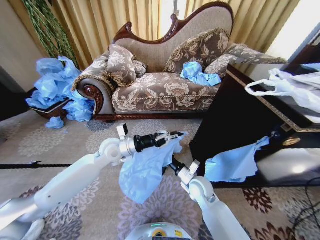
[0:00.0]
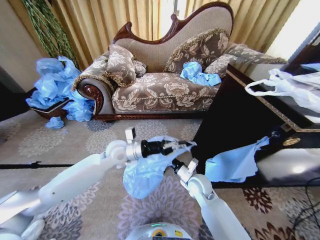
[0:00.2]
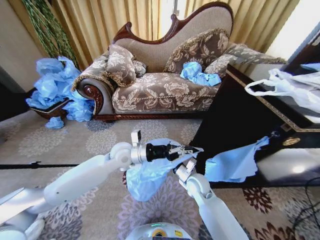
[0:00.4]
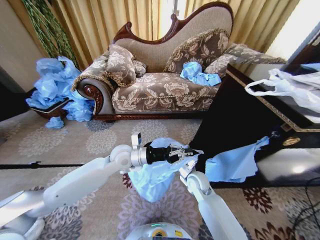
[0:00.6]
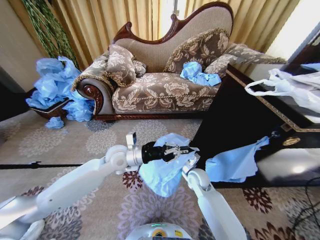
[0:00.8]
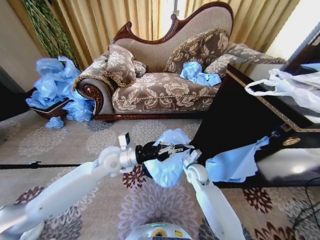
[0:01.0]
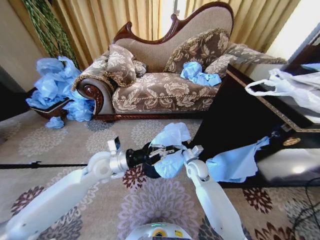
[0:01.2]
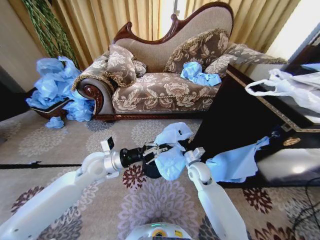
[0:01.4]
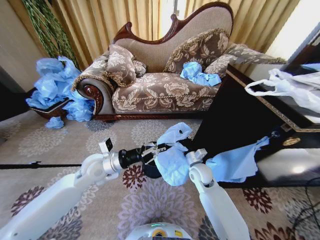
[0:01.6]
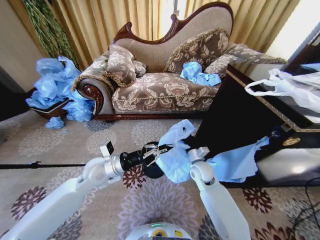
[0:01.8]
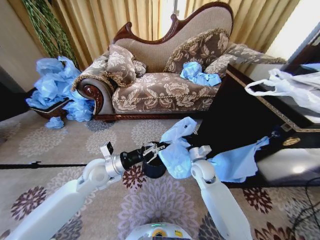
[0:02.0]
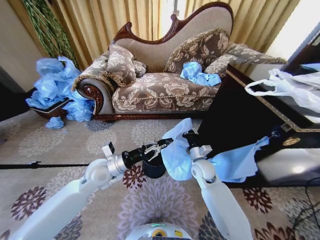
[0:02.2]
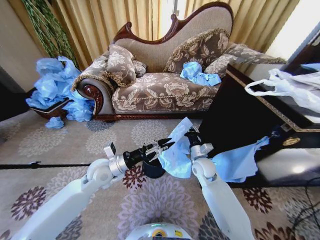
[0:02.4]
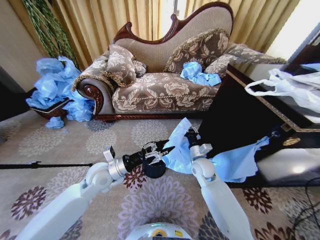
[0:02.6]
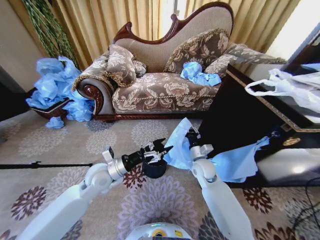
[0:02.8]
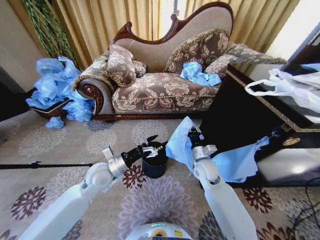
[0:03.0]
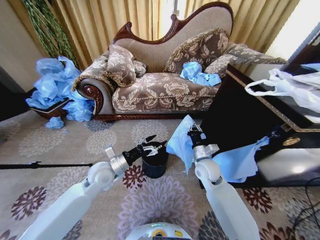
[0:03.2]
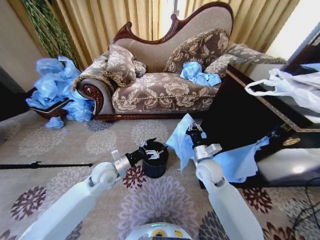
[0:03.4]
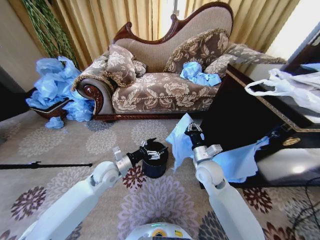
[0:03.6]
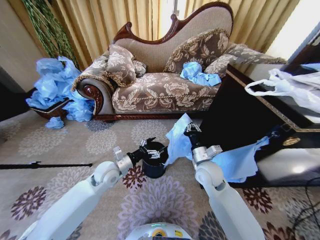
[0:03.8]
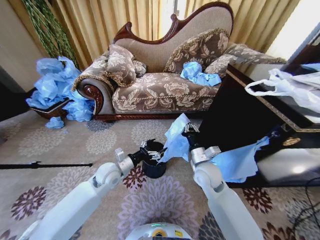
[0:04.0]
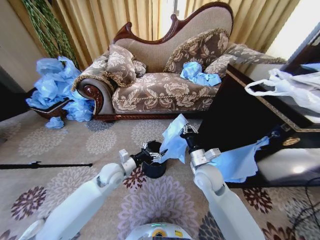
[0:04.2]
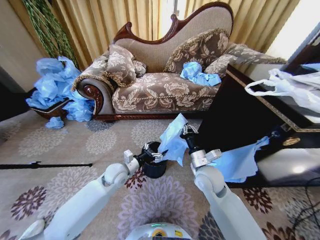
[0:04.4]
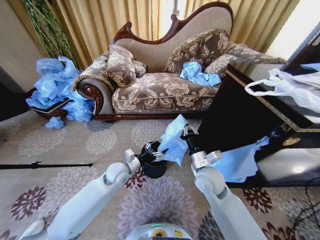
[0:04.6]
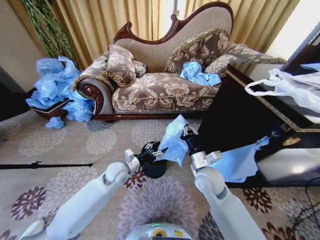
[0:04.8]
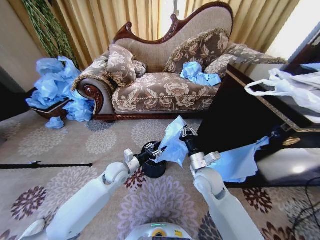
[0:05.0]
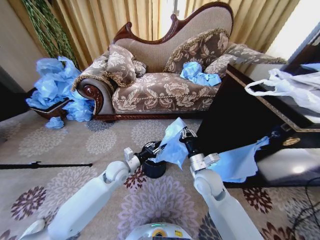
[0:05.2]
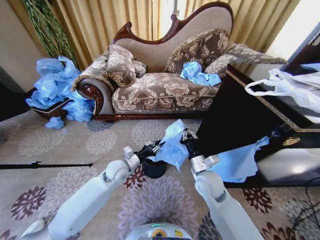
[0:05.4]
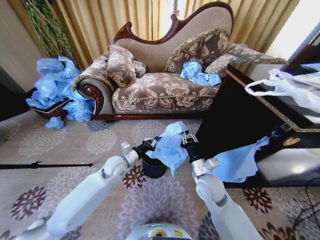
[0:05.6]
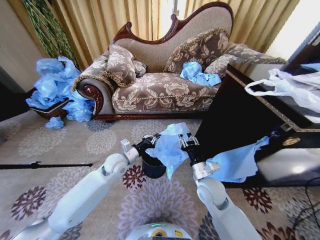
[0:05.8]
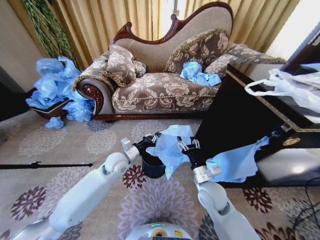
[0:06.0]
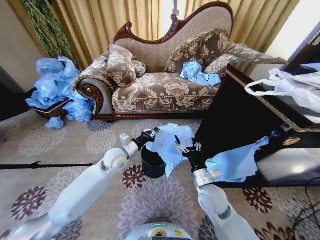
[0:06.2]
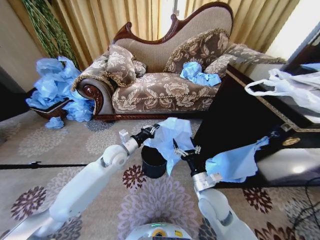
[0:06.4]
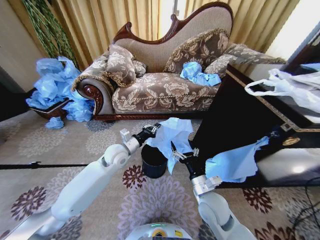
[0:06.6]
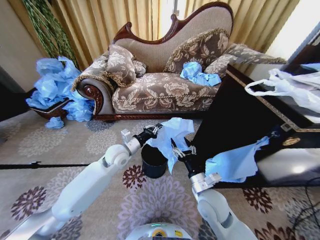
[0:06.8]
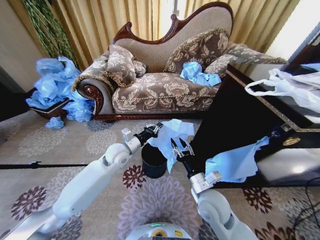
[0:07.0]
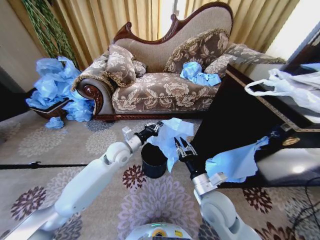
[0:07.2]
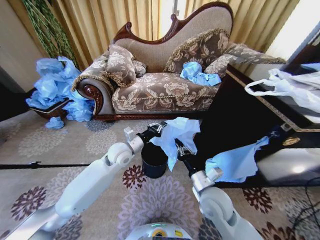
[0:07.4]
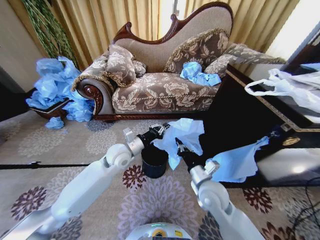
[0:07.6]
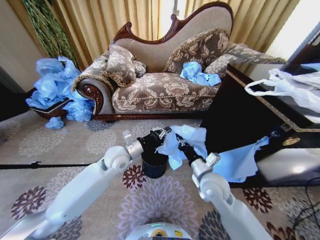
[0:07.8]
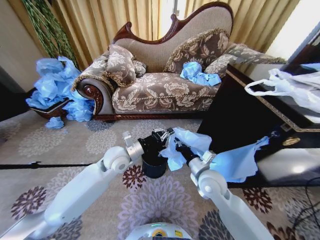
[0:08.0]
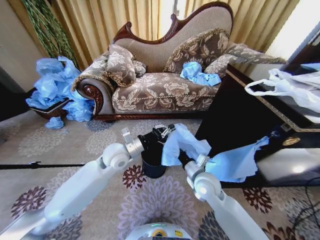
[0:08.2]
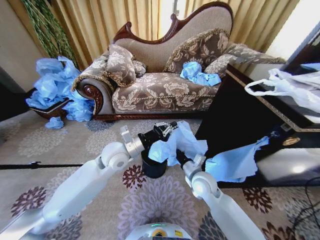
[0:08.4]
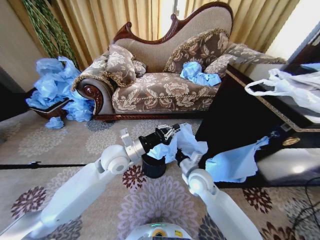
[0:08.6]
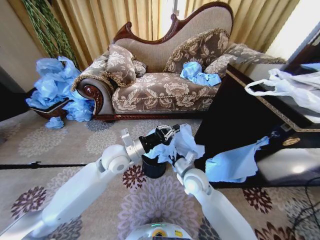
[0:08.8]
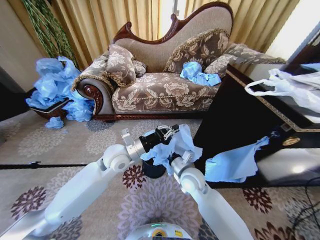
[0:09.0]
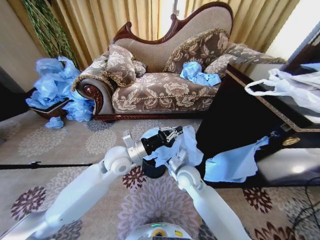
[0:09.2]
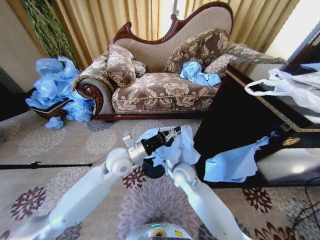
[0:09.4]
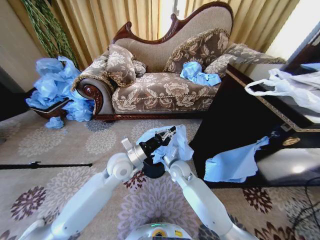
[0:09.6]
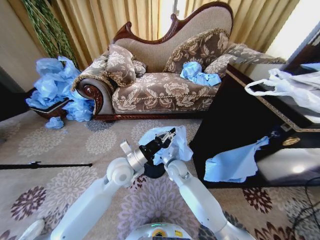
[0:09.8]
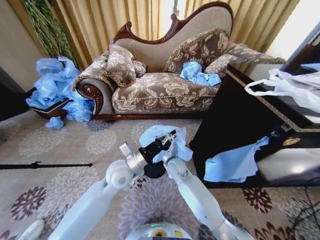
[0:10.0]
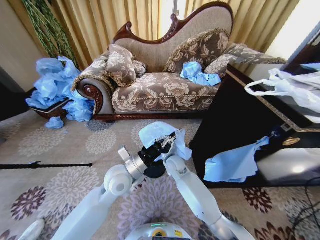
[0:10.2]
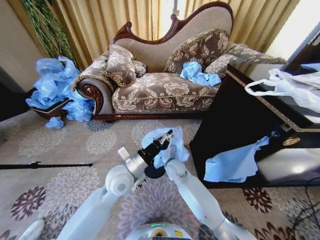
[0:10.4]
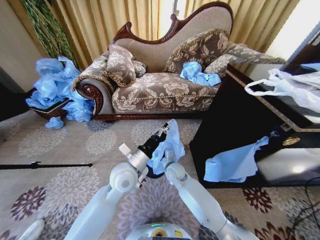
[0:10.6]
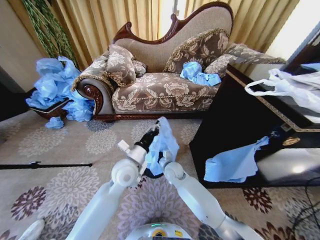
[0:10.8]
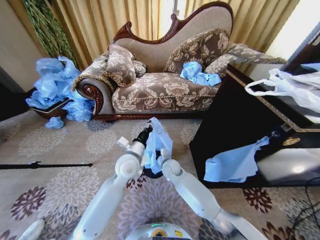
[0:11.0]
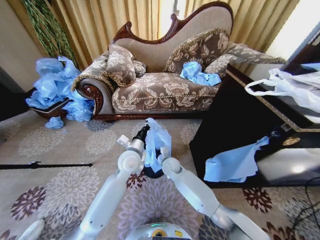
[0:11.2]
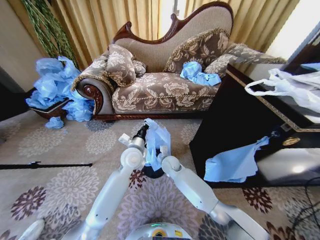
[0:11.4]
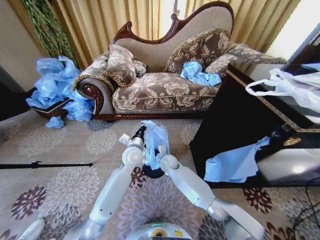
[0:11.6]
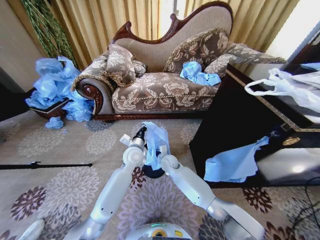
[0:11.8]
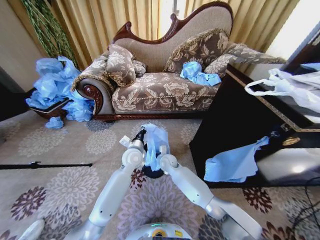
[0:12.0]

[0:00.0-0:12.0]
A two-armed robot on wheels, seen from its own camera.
Task of the whole recording: Place a garbage bag over the trash bin.
0:00.0 to 0:01.6: The left gripper goes some 5 cm backward. The right gripper goes about 5 cm forward.
0:01.6 to 0:03.0: The left gripper opens up.
0:03.0 to 0:04.4: The left gripper shifts about 5 cm downward, while the right gripper is displaced backward by roughly 5 cm.
0:04.4 to 0:06.0: The right gripper heads downward, covering roughly 5 cm, and opens, while the left gripper closes.
0:06.0 to 0:07.6: The left gripper goes some 5 cm upward. The right gripper closes.
0:07.6 to 0:09.0: The right gripper is displaced to the left and forward by about 10 cm.
0:09.0 to 0:10.4: The left gripper goes roughly 5 cm backward. Meanwhile the right gripper shifts approximately 10 cm forward and downward.
0:10.4 to 0:12.0: The left gripper moves forward and downward, approximately 15 cm, while the right gripper moves forward, about 5 cm.

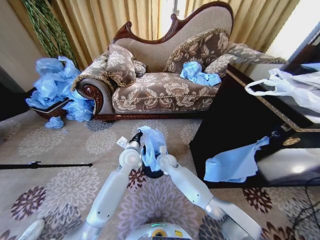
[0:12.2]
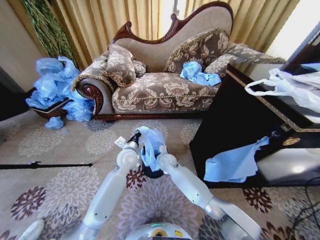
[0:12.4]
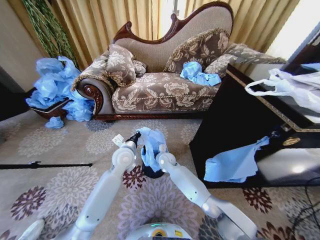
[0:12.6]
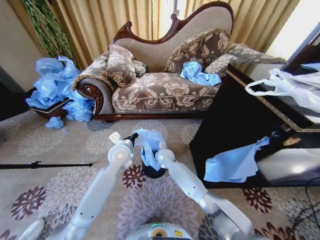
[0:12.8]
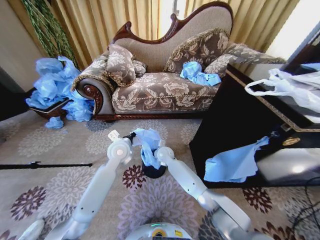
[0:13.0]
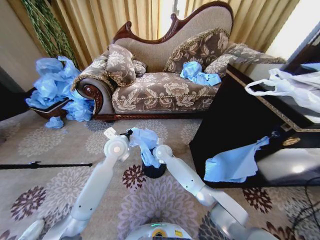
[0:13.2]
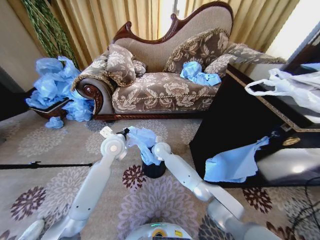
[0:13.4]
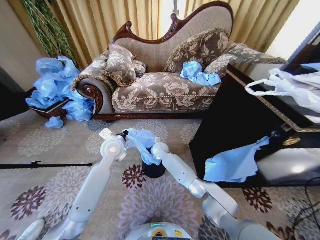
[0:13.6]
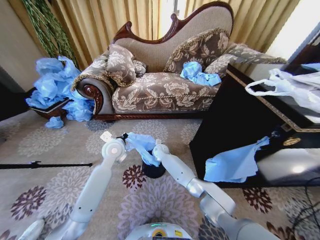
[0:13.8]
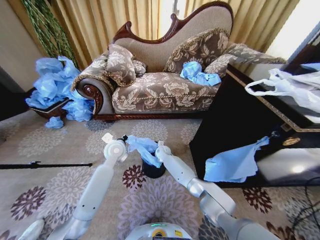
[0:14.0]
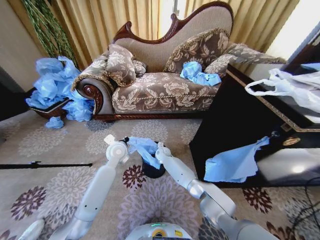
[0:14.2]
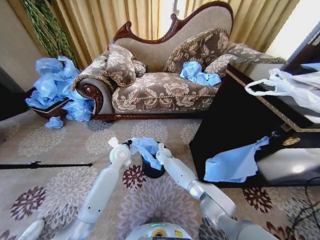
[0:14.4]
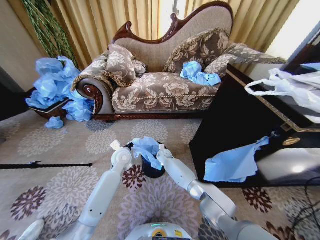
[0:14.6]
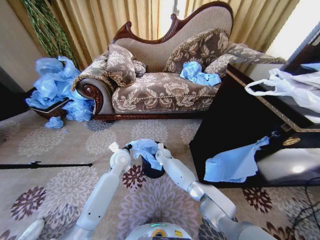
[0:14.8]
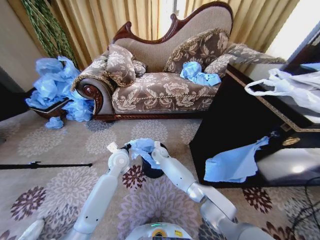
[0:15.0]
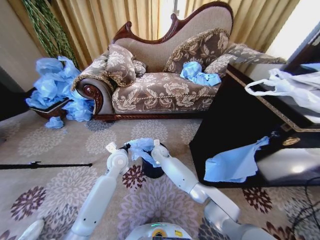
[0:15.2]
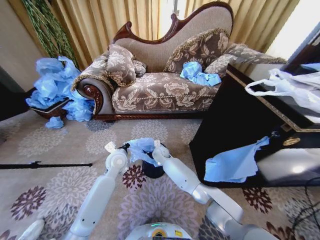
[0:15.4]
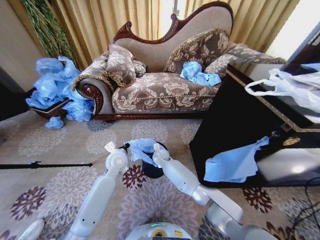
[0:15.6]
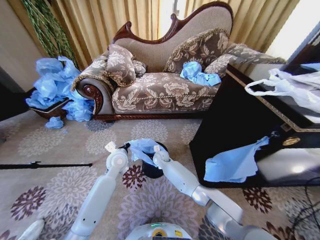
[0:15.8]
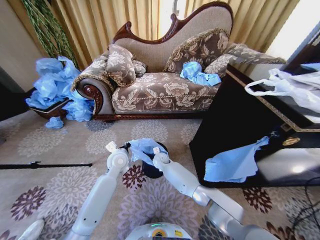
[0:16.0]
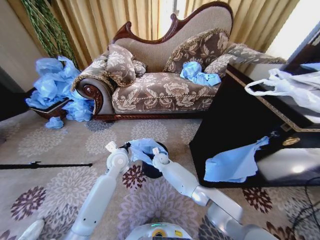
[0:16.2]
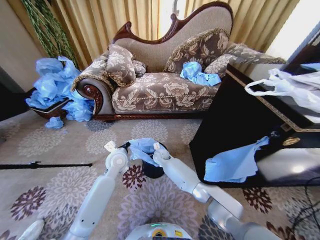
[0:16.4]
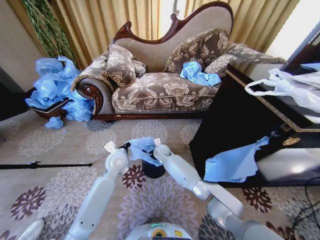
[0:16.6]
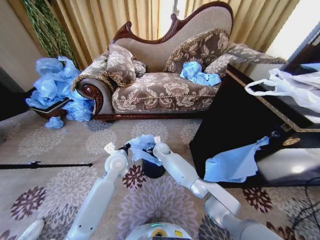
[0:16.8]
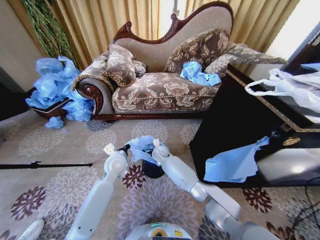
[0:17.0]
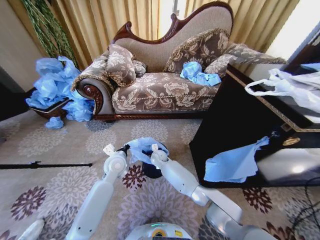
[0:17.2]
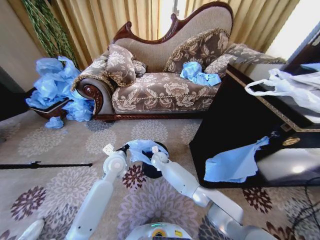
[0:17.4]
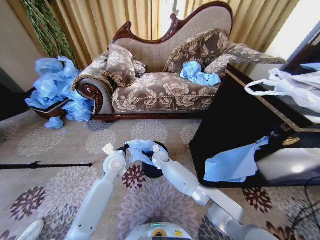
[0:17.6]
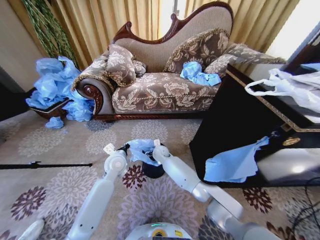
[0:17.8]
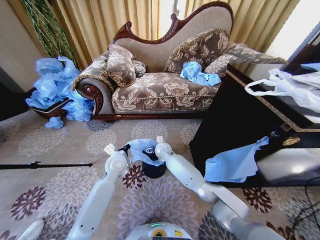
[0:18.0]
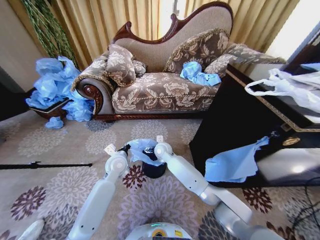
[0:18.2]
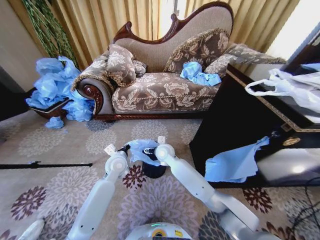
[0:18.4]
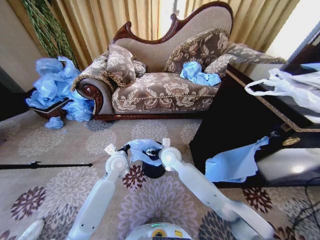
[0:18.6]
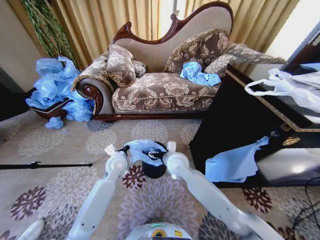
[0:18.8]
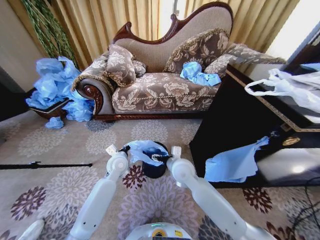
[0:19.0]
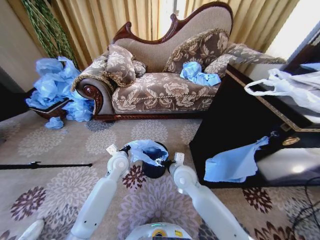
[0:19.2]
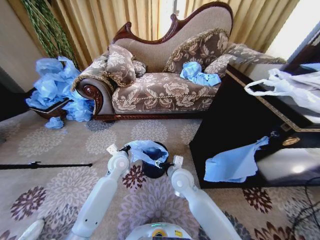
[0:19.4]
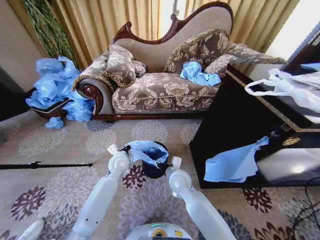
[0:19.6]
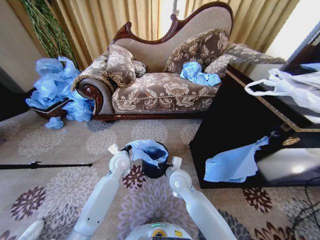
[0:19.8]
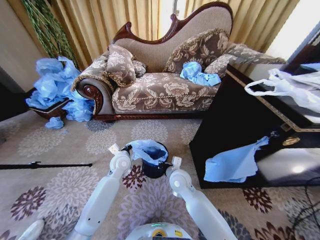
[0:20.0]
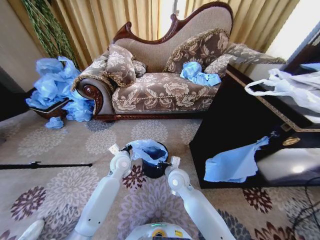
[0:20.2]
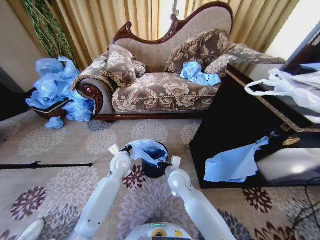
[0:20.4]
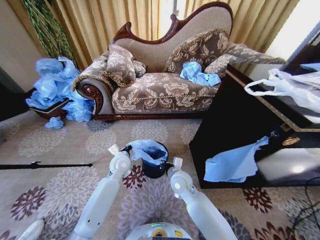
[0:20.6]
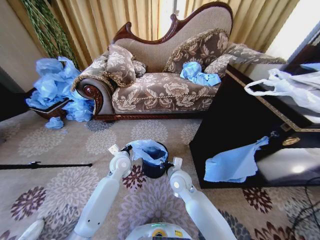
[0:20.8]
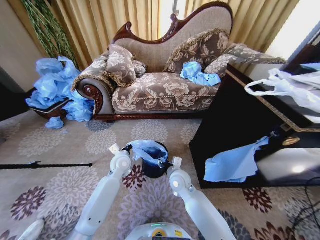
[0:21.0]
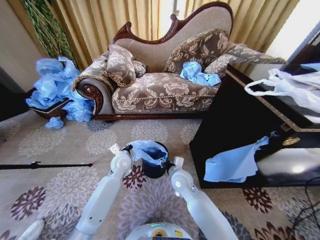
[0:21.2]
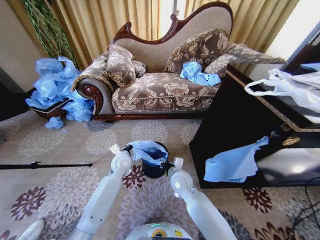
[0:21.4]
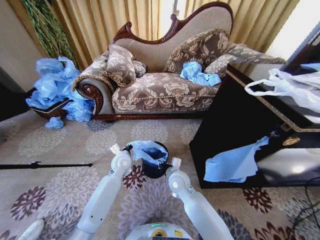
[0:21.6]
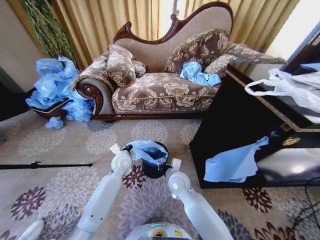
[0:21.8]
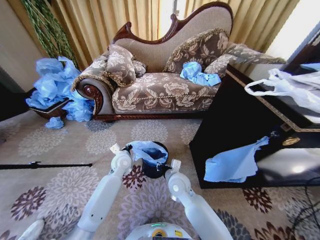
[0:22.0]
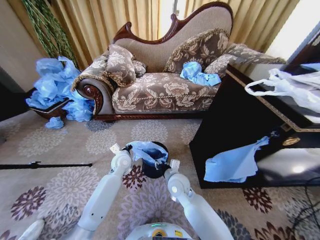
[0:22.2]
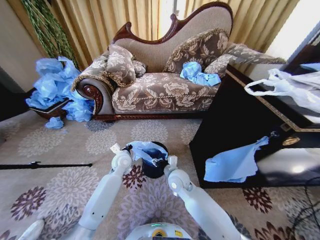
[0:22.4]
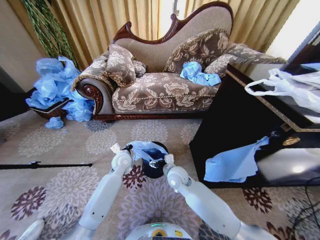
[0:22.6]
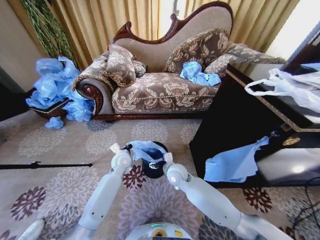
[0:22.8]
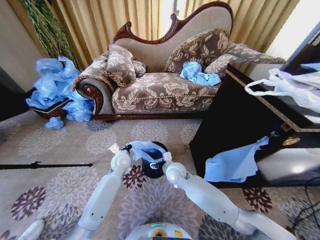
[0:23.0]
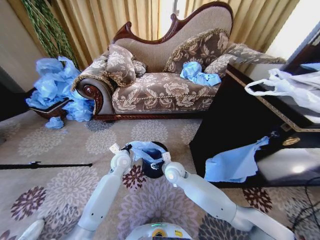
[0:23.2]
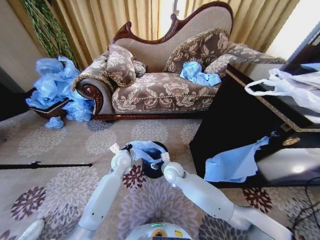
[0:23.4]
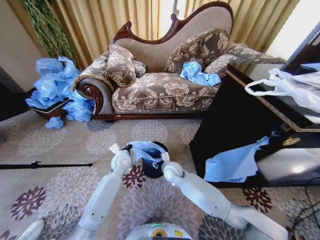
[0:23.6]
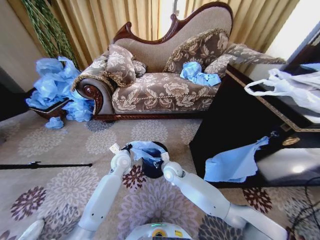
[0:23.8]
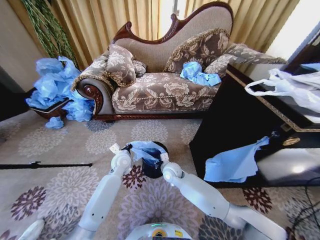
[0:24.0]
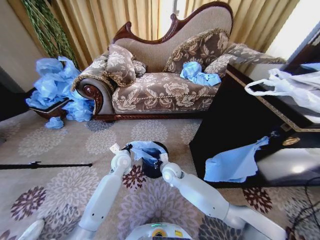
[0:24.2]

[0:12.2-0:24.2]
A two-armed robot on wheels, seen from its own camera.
Task of the whole recording: Place a garbage bag over the trash bin.
0:12.2 to 0:13.8: The right gripper moves forward, about 10 cm. The left gripper shifts about 10 cm upward and to the left.
0:13.8 to 0:15.2: The left gripper heads downward, covering roughly 5 cm.
0:15.2 to 0:16.6: The right gripper opens.
0:16.6 to 0:18.2: The right gripper travels upward by some 5 cm.
0:18.2 to 0:19.8: The right gripper moves backward and to the right, some 15 cm, and closes up.
0:19.8 to 0:21.2: The right gripper closes, then opens again.
0:21.2 to 0:22.6: The right gripper opens up.
0:22.6 to 0:24.2: The right gripper closes up.
